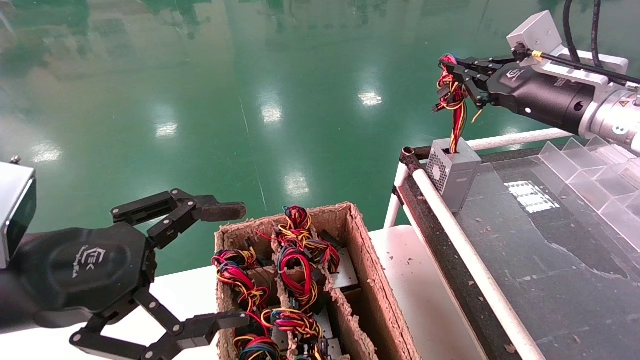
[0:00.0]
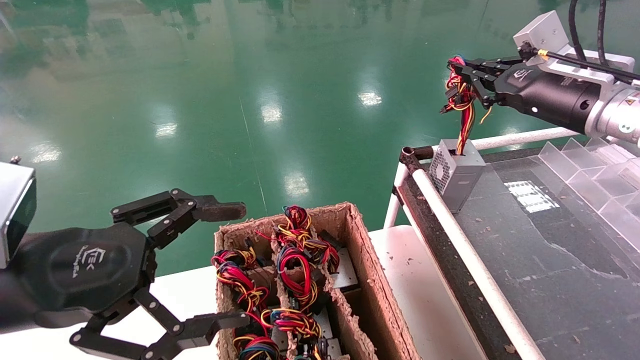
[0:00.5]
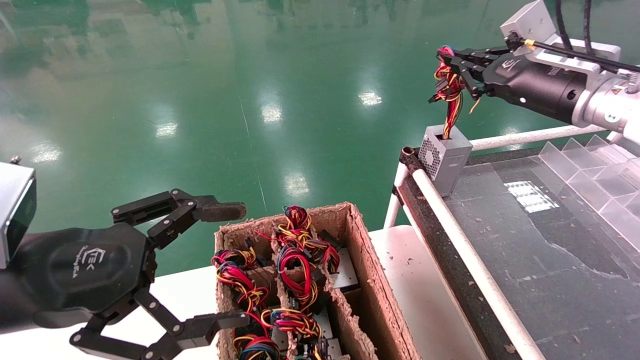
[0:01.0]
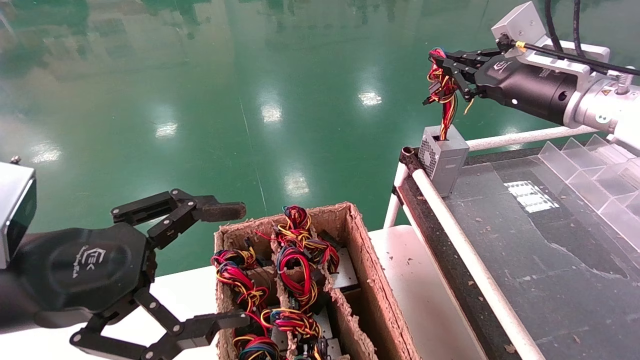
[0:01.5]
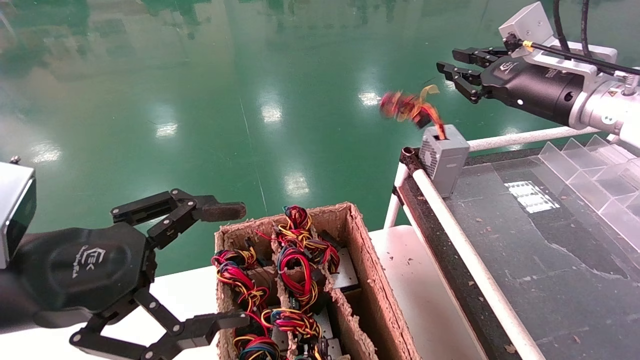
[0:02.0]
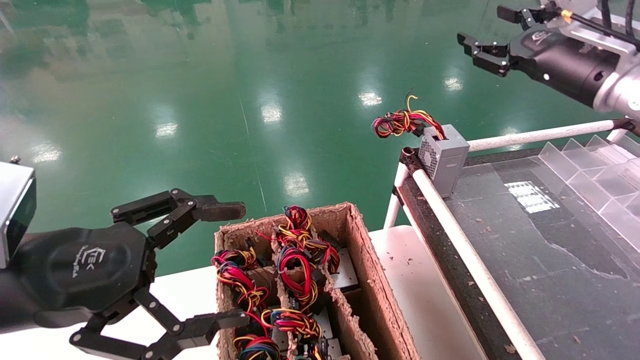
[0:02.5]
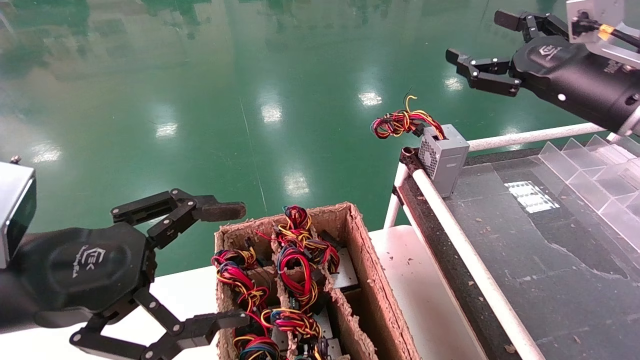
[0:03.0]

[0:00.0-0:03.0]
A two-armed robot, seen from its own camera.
0:00.0 to 0:01.5: The grippers move only a little.
0:01.5 to 0:03.0: The right gripper moves backward, approximately 5 cm, and opens its fingers.
